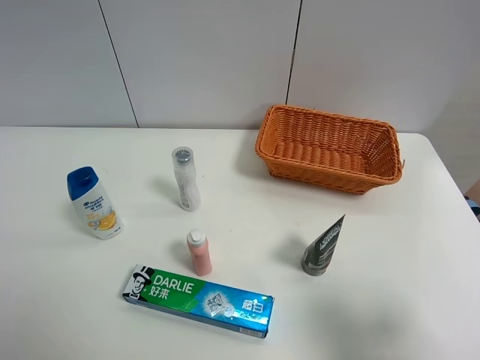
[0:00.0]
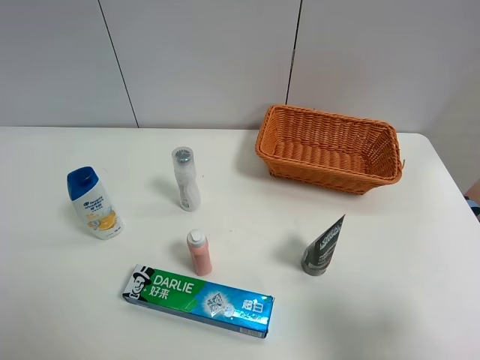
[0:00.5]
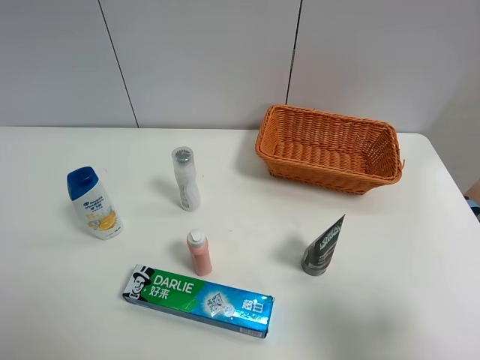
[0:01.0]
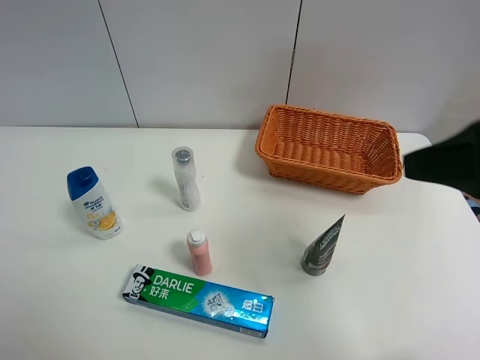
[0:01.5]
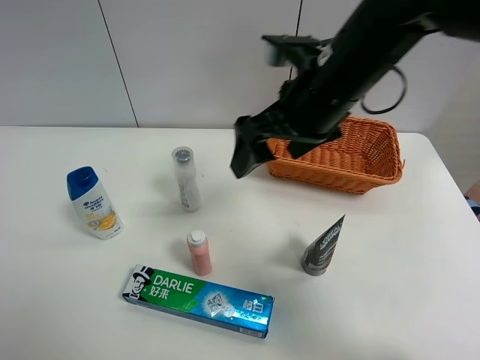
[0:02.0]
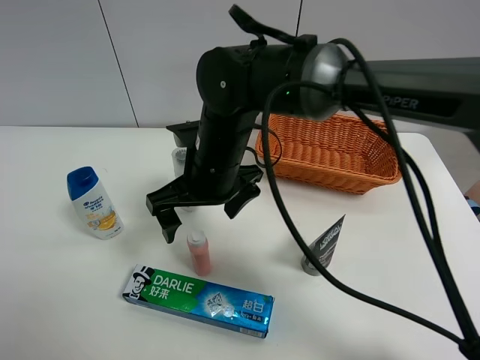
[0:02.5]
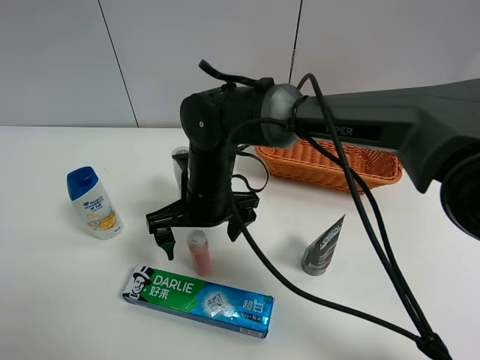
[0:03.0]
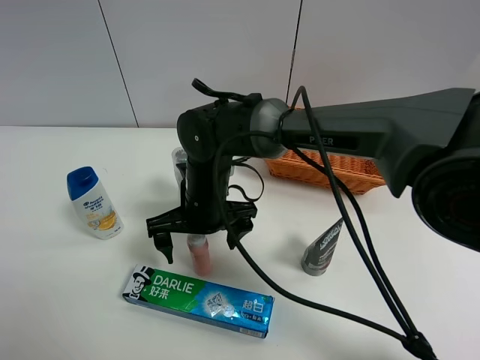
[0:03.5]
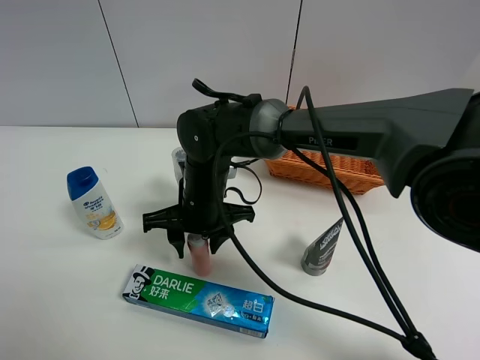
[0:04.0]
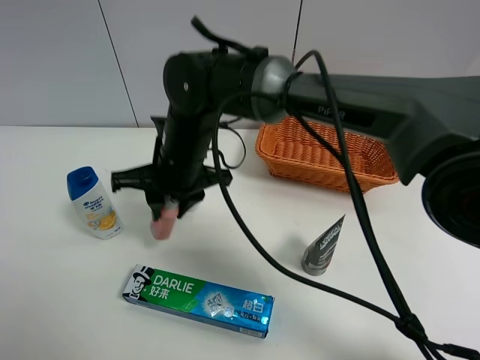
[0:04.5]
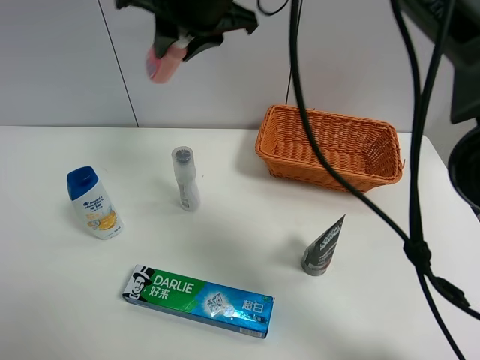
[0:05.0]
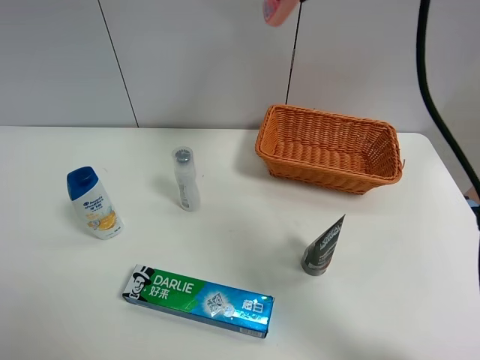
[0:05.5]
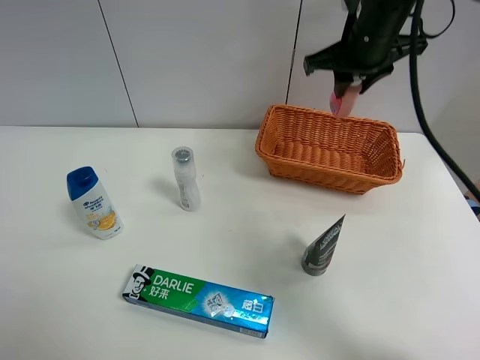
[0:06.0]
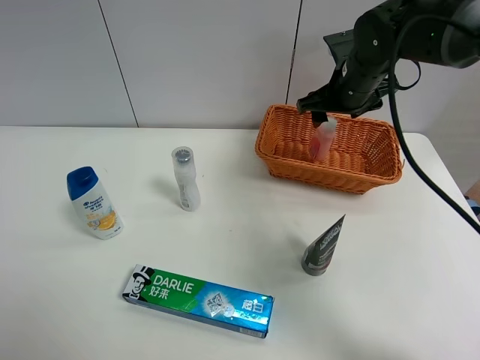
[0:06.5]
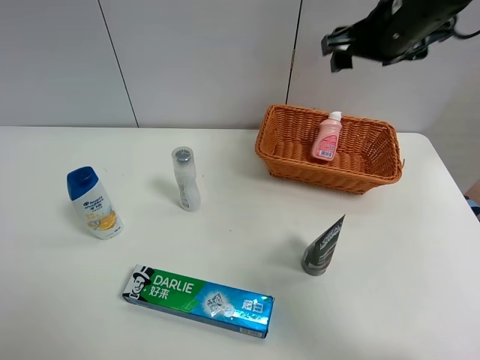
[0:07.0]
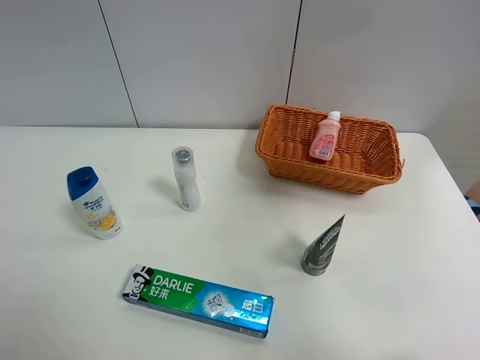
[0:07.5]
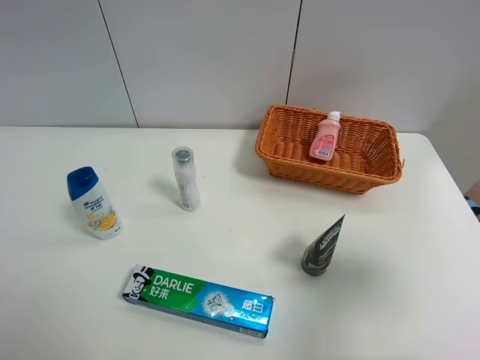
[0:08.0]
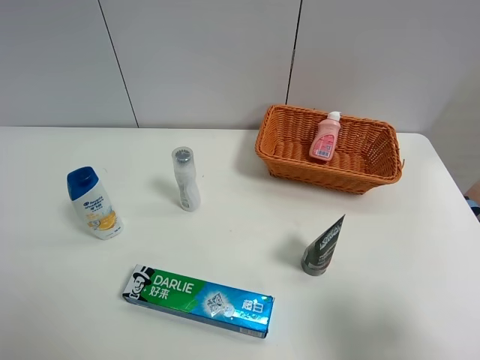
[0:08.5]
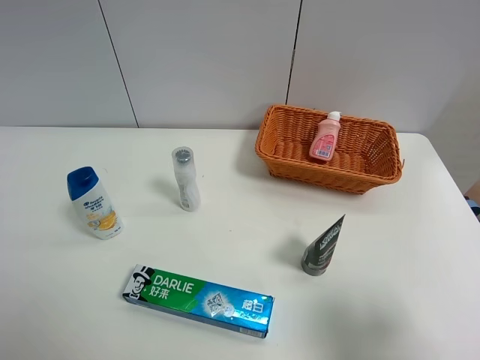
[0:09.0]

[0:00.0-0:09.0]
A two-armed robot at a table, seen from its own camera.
Task of the whole recording: Place the object closest to the toothpaste in the basket.
Step, 0:00.0 to 0:04.0: Grasp the pink laundry detergent with right gripper.
Step, 0:04.5 to 0:06.5: Place the pink laundry detergent in the basket with right gripper.
0:00.0 to 0:02.0: The right gripper shifts some 35 cm forward and to the left.
0:02.0 to 0:04.5: The right gripper moves to the left and downward, roughly 15 cm, and closes its fingers.
0:04.5 to 0:07.0: The right gripper shifts roughly 30 cm to the right and upward, and opens.
0:07.0 to 0:09.0: The right gripper shifts some 35 cm backward.
